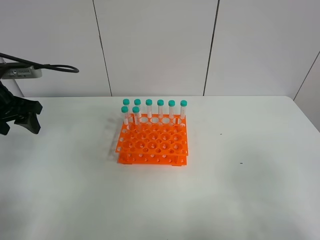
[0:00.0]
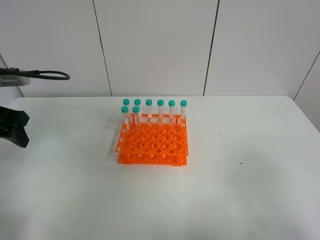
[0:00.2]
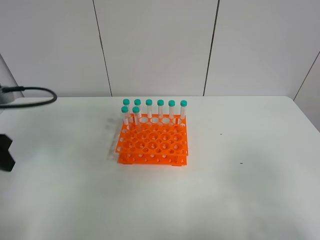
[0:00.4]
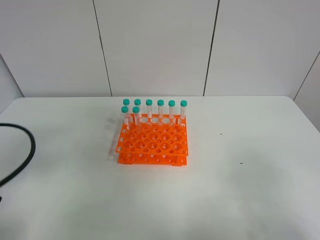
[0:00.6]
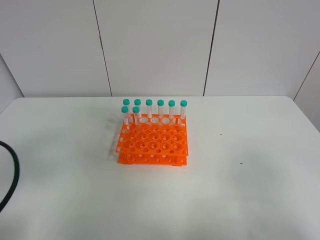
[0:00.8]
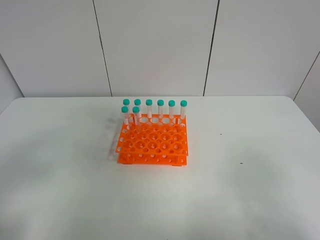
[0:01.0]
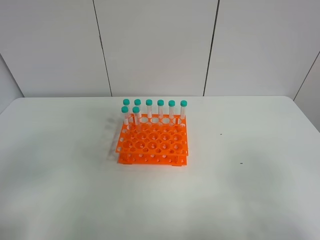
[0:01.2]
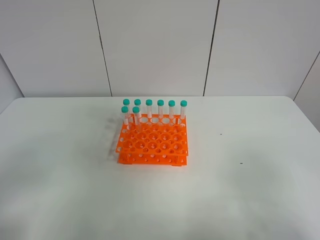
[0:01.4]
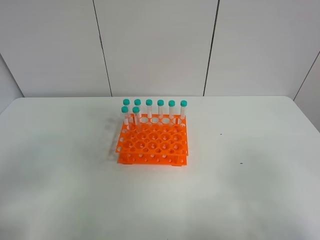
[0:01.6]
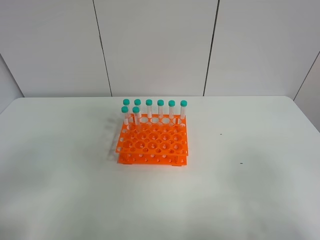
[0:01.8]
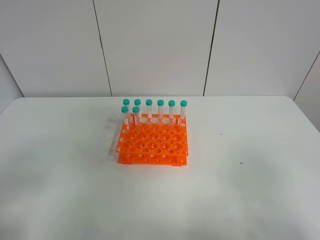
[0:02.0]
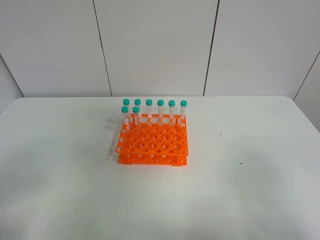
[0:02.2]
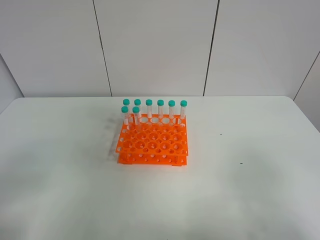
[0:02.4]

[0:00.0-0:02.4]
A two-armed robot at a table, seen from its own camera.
Task of the whole recording: Put the test tube on the table back onto the test tube rack.
0.0 to 1.2 s: The left gripper shifts roughly 25 cm backward.

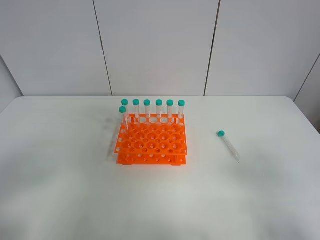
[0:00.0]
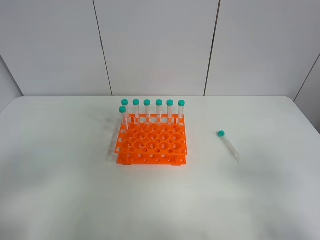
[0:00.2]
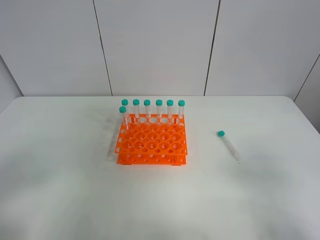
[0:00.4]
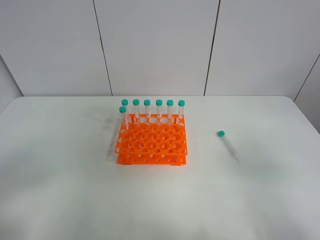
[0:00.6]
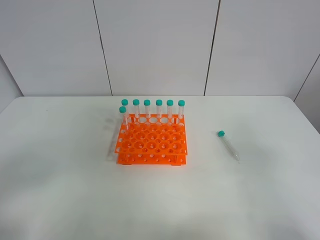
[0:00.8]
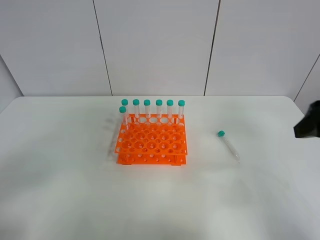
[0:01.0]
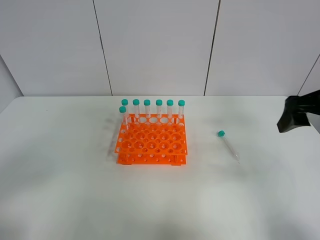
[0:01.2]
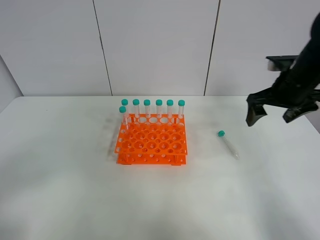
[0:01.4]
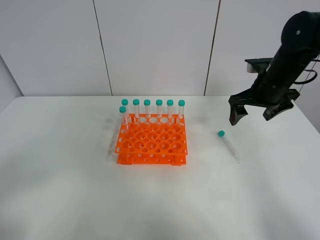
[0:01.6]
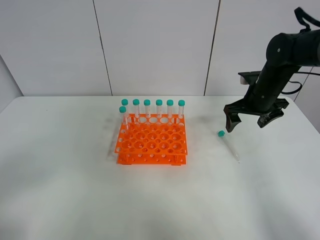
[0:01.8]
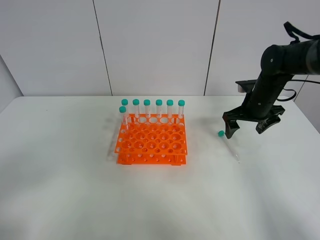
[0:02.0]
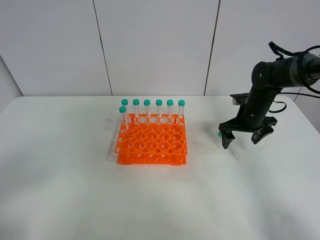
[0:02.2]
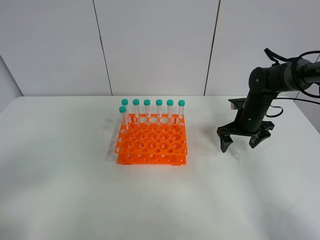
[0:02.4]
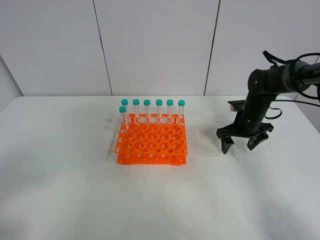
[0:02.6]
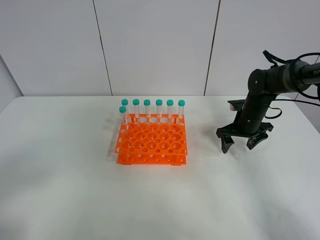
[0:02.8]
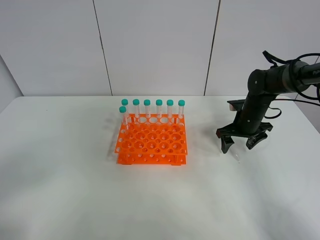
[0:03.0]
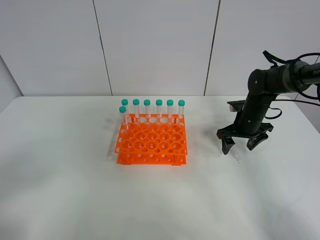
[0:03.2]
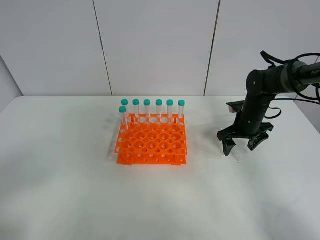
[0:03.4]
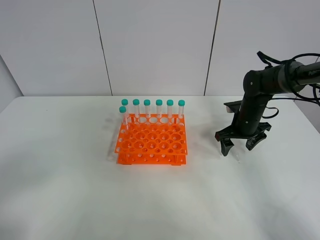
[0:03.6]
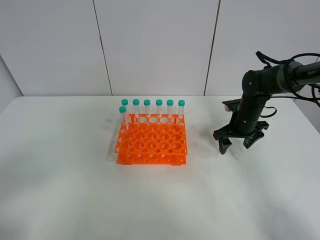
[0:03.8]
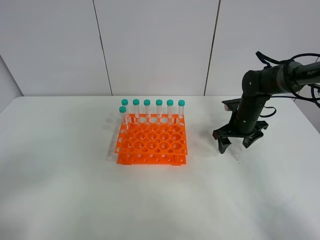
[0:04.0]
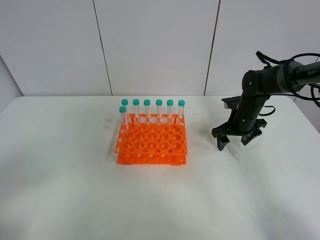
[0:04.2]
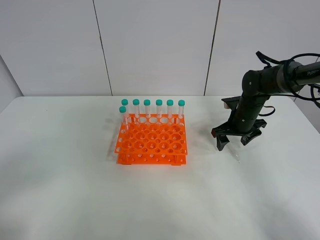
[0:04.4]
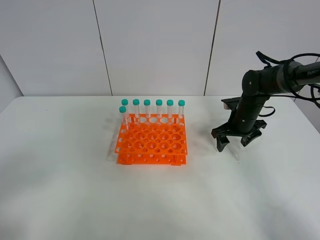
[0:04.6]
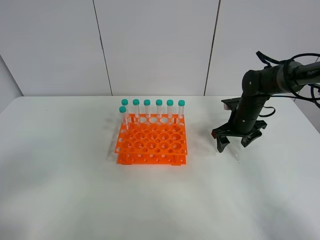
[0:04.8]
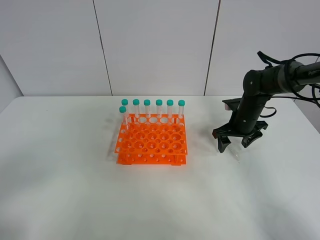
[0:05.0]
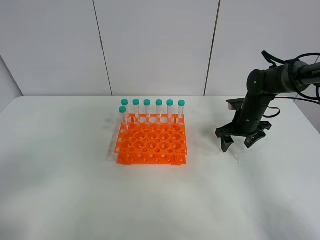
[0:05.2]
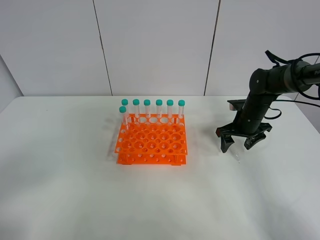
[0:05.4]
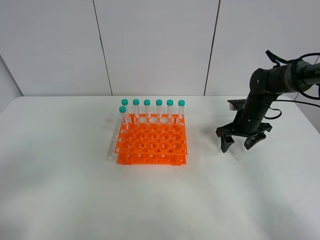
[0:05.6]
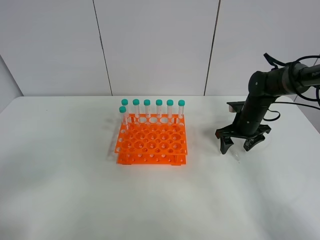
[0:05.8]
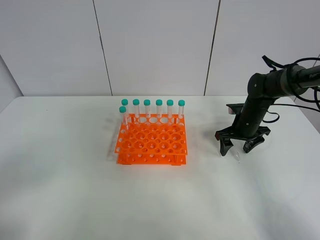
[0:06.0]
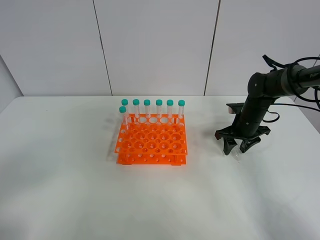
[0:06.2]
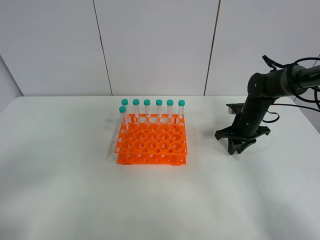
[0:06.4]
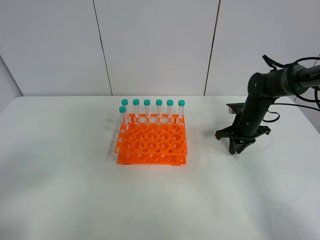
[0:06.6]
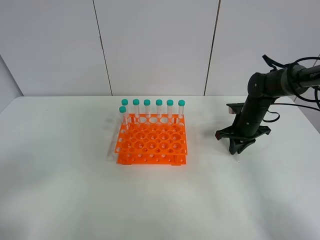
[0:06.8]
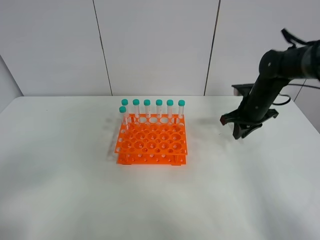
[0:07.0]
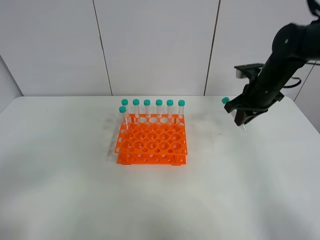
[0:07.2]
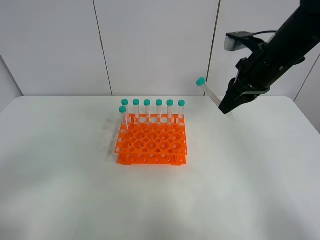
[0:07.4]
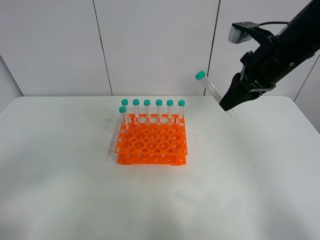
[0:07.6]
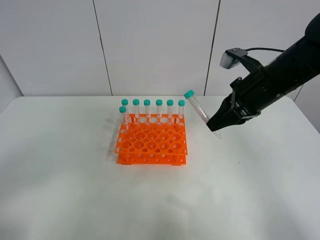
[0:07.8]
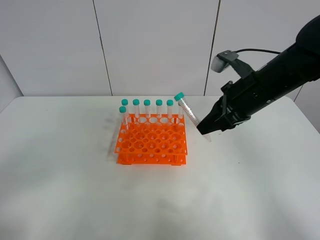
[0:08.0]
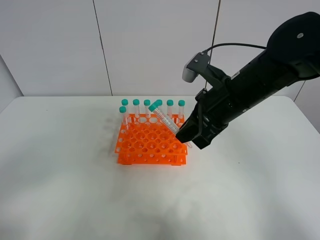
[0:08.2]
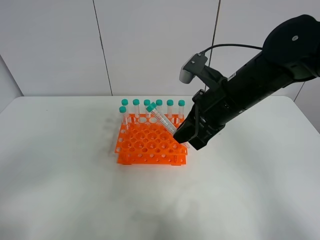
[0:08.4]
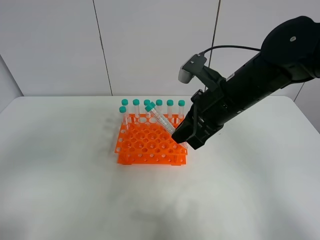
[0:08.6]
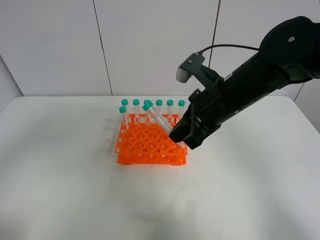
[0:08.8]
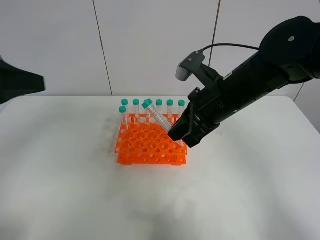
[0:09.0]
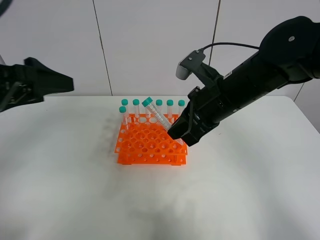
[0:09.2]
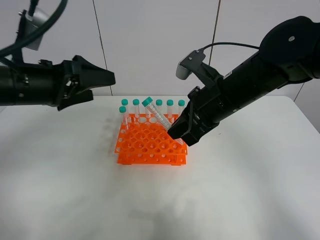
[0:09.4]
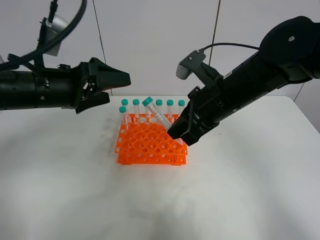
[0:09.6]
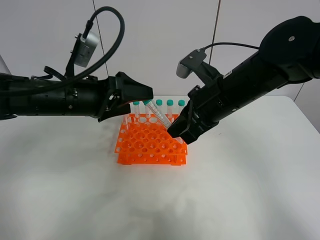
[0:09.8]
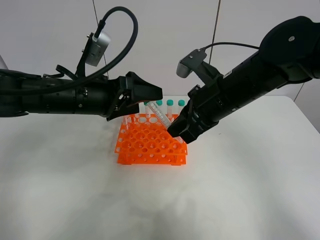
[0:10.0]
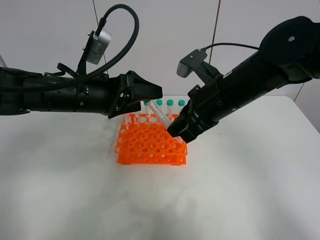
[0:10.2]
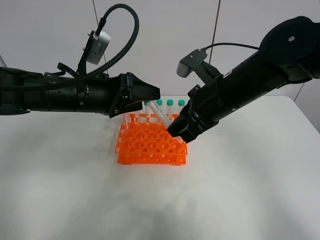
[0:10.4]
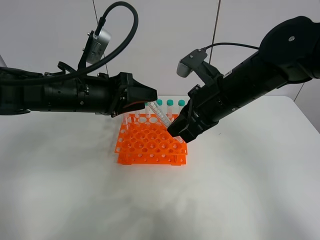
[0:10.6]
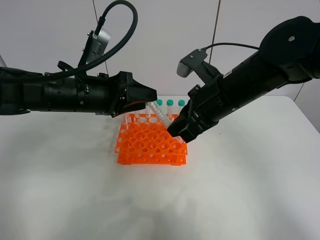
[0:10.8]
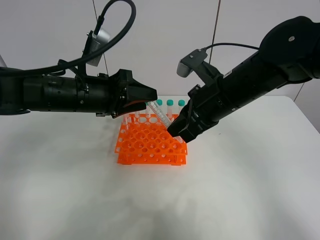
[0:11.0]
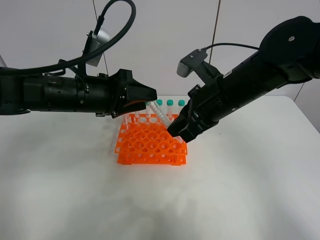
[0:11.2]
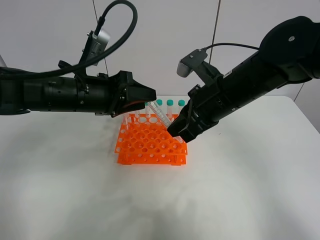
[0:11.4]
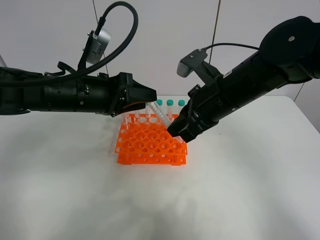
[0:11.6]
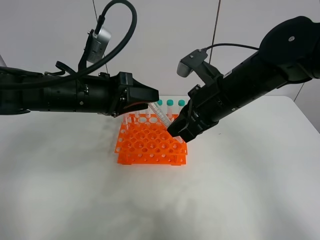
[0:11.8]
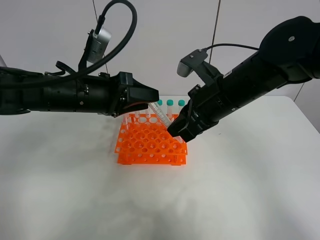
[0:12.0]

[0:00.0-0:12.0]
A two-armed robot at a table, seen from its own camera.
Task of the whole recording: Put the test tube on the table back onto the test tube rack.
Step, 0.0 to 7.2 s: Pick up the test tube with the right gripper.
0.0 to 1.6 s: The right gripper shifts about 35 cm forward.
1.6 to 3.0 s: The right gripper shifts approximately 15 cm downward.
3.0 to 6.0 s: The grippers stay close to where they were, moving slightly.
6.0 to 7.6 s: The right gripper is displaced upward and backward by roughly 25 cm, and closes up.
7.6 to 9.0 s: The right gripper moves to the left and downward, about 10 cm. The left gripper heads forward and upward, covering some 20 cm.
9.0 to 10.4 s: The left gripper is displaced to the right, forward and downward by about 20 cm, and closes.
10.4 to 12.0 s: The grippers stay close to where they were, moving slightly.

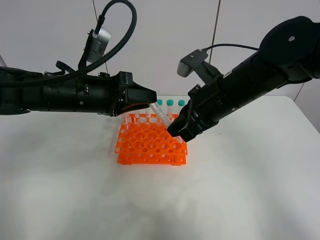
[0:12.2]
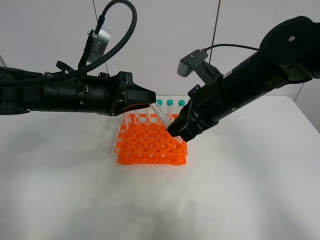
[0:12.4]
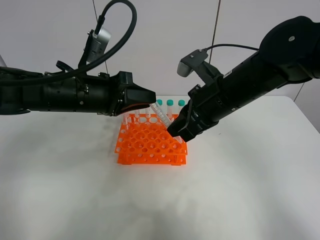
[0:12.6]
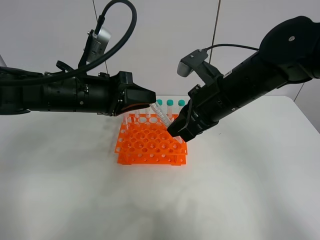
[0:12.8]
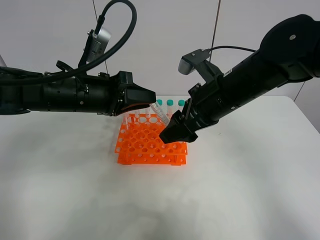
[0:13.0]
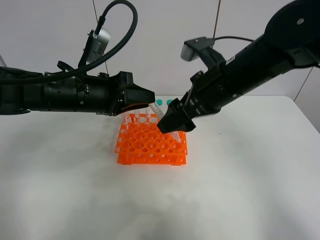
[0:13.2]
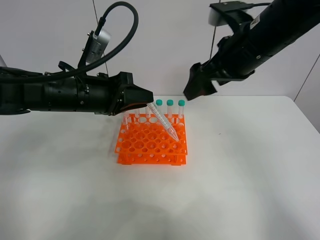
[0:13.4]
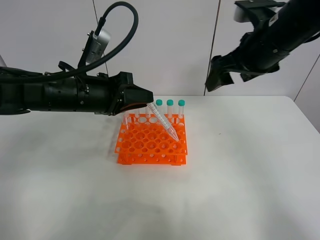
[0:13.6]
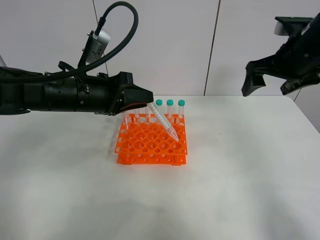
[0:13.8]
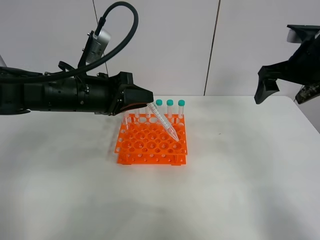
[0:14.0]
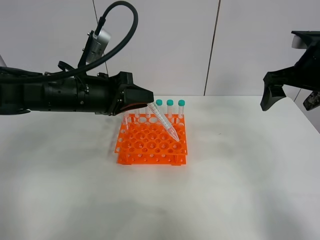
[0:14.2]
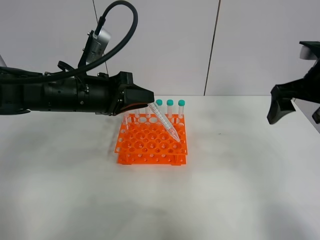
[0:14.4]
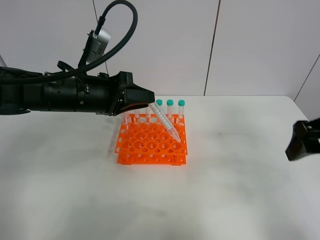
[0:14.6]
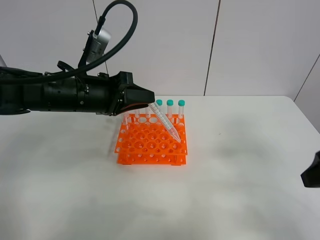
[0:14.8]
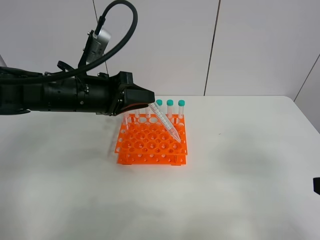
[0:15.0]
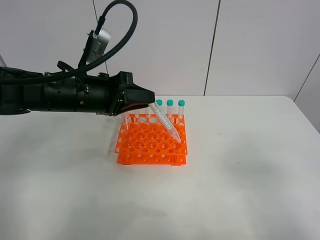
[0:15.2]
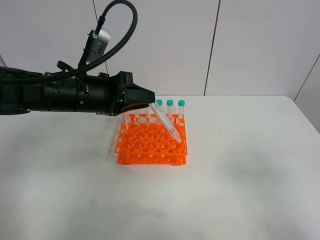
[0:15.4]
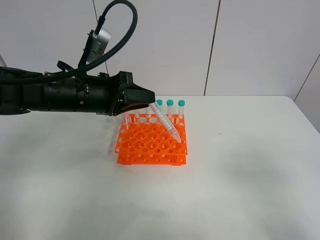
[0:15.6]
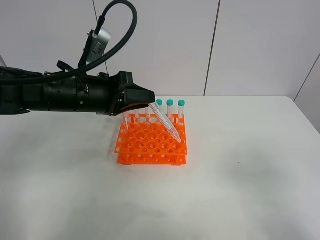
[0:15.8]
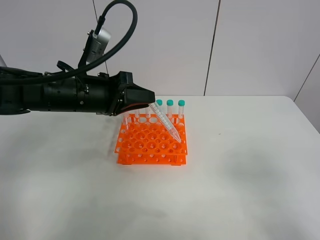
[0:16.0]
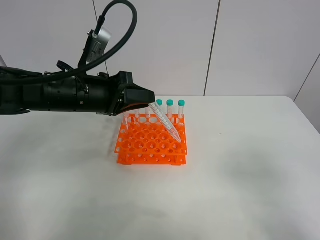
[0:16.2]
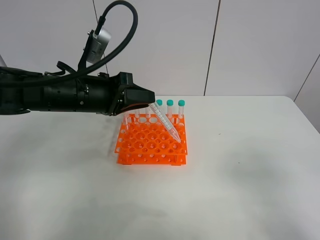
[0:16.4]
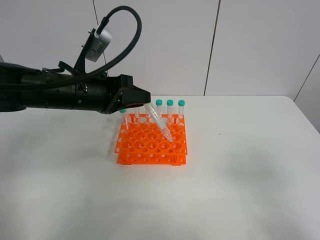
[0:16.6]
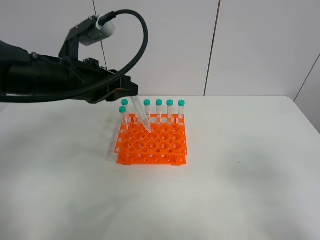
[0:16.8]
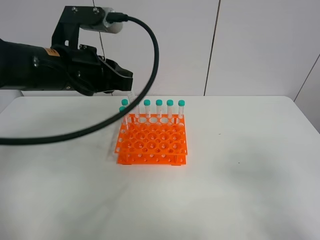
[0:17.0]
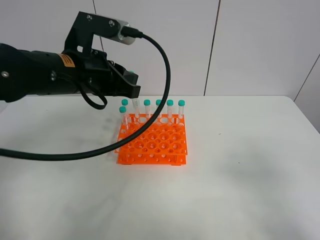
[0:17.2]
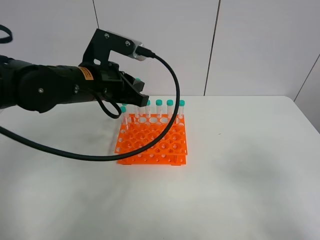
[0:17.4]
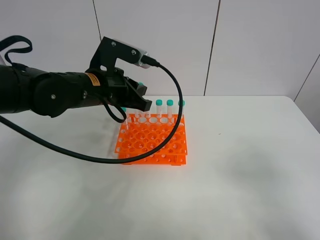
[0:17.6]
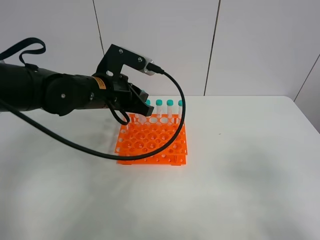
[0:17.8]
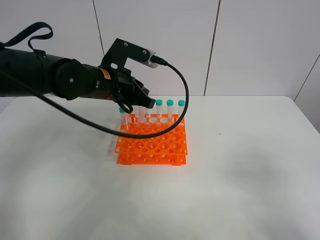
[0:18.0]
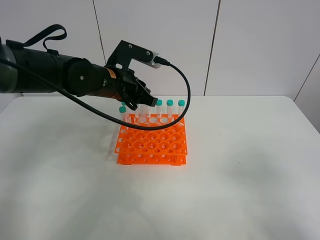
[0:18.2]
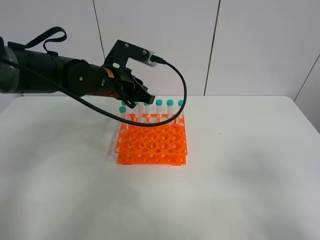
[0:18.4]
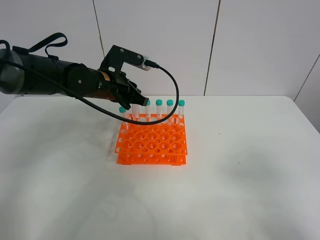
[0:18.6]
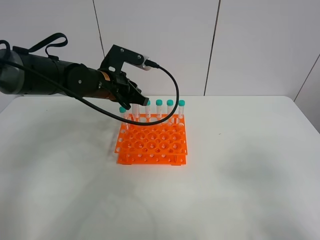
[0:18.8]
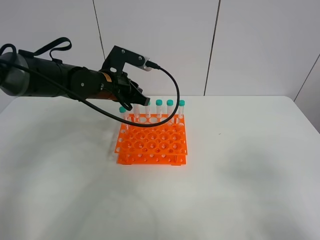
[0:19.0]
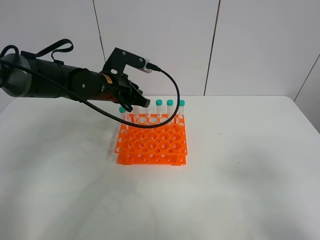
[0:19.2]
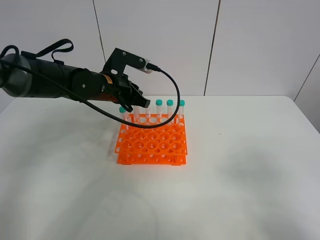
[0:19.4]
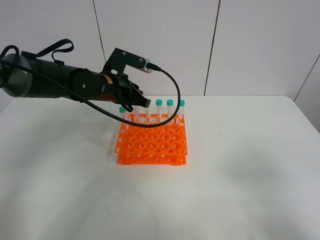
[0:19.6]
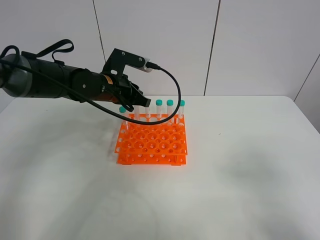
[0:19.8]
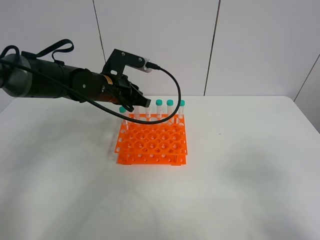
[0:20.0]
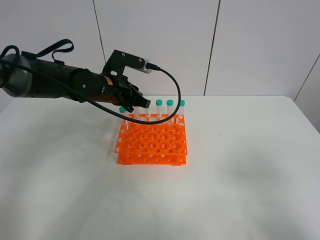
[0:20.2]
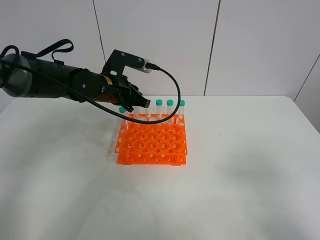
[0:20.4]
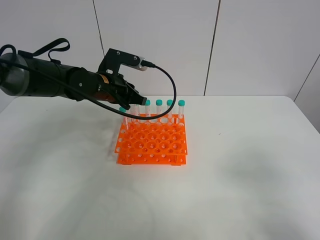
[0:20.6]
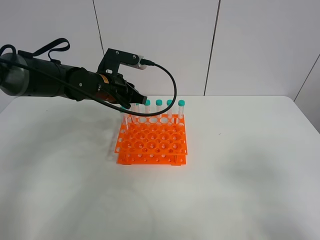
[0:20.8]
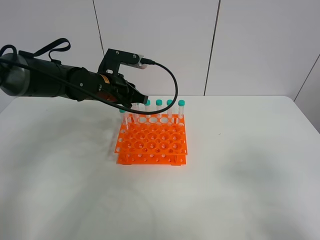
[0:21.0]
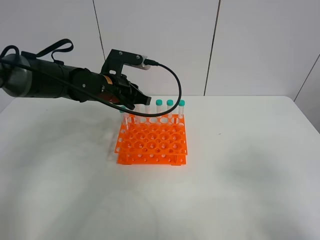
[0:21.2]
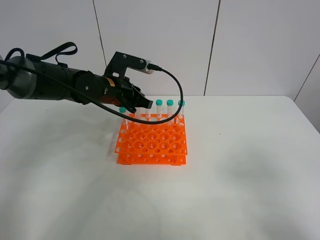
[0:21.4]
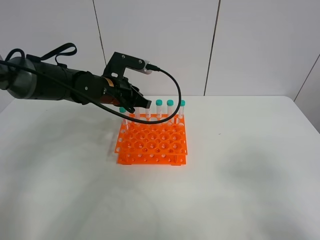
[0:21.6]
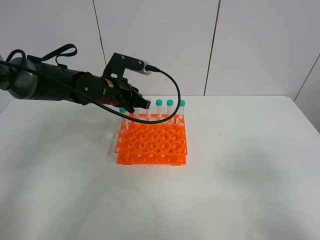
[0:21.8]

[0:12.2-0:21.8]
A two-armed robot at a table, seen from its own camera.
Task of the whole recording: Put the test tube on the table back onto the test tube rack.
12.2 to 13.8 s: The right gripper is displaced to the right by some 15 cm, and opens up.
13.8 to 15.4 s: The right gripper is displaced backward by some 30 cm.
15.4 to 17.0 s: The left gripper goes some 5 cm upward.
17.0 to 18.6 s: The left gripper moves forward and downward, approximately 15 cm.
18.6 to 20.2 s: The two grippers keep their place.
20.2 to 21.8 s: The grippers stay close to where they were, moving slightly.
